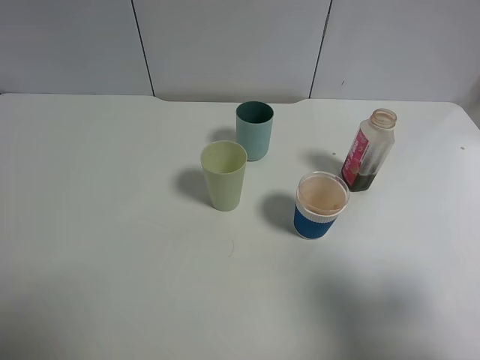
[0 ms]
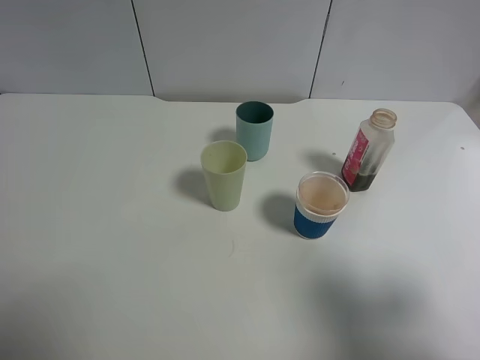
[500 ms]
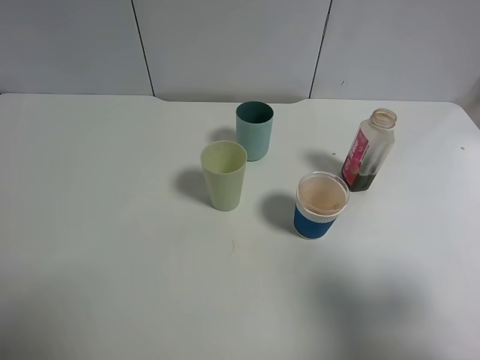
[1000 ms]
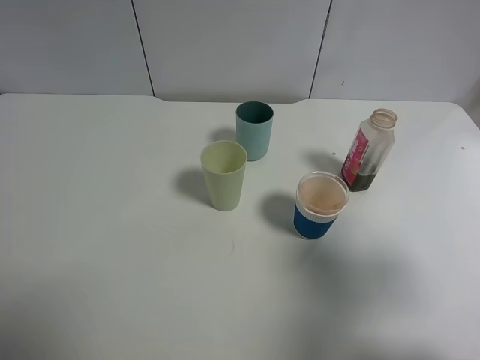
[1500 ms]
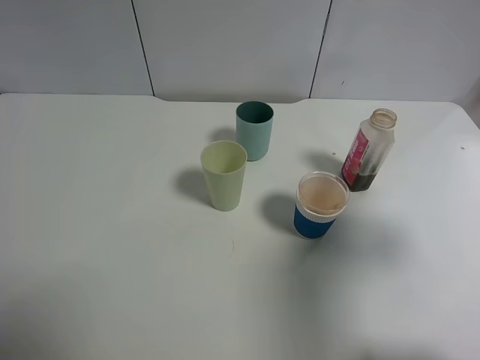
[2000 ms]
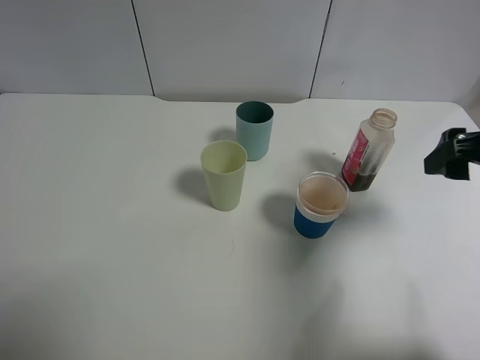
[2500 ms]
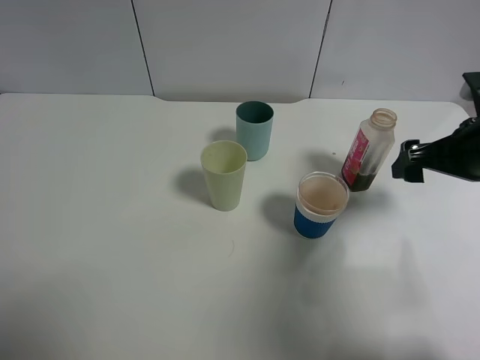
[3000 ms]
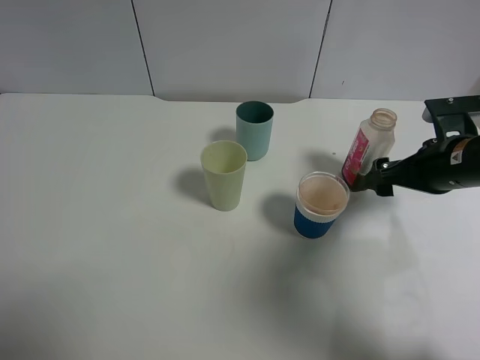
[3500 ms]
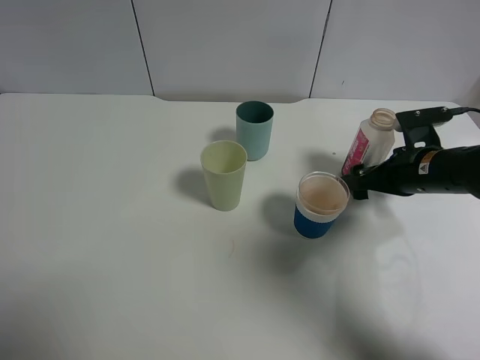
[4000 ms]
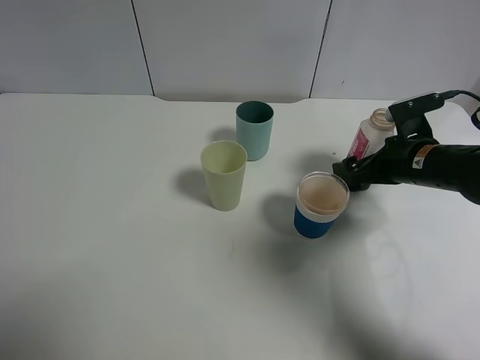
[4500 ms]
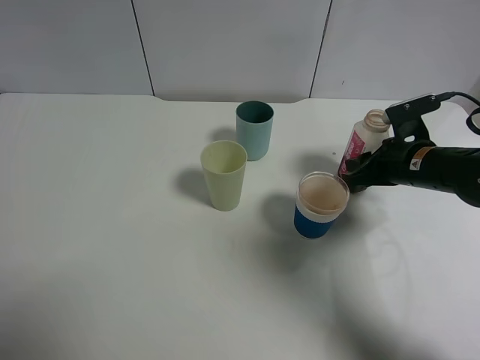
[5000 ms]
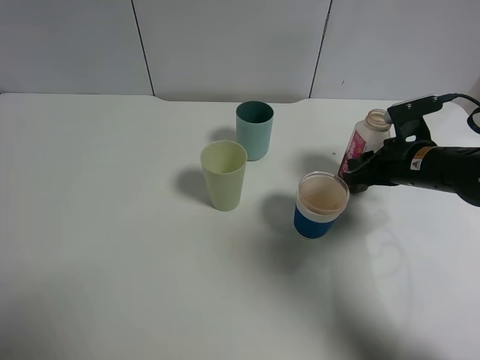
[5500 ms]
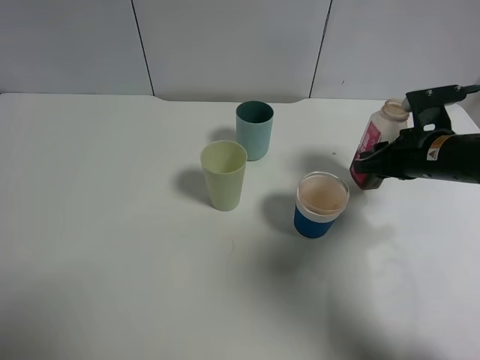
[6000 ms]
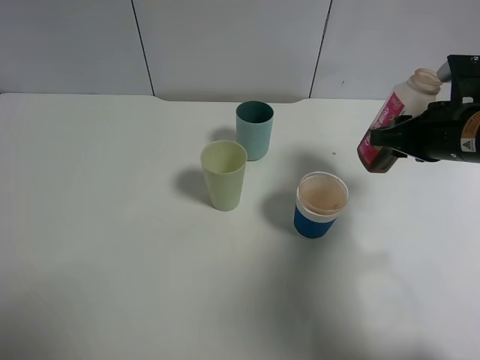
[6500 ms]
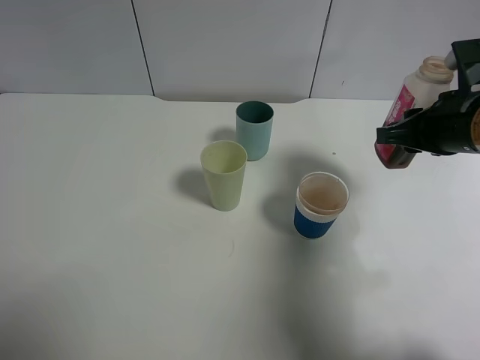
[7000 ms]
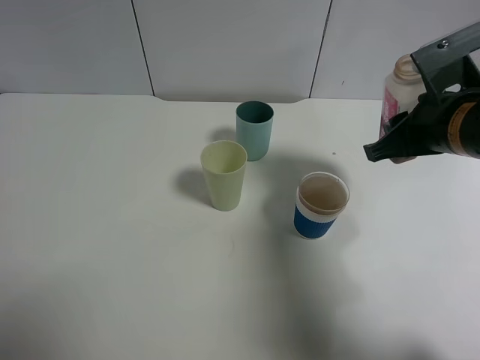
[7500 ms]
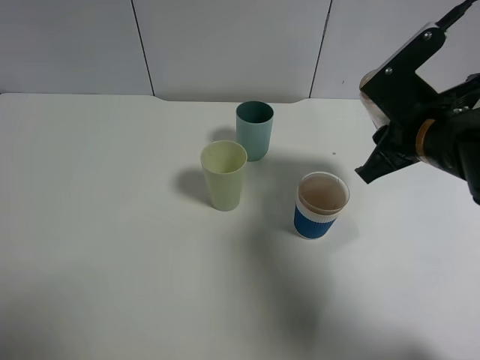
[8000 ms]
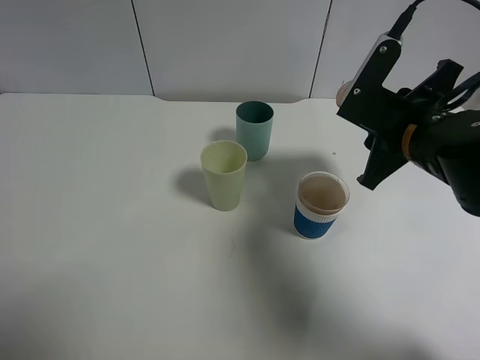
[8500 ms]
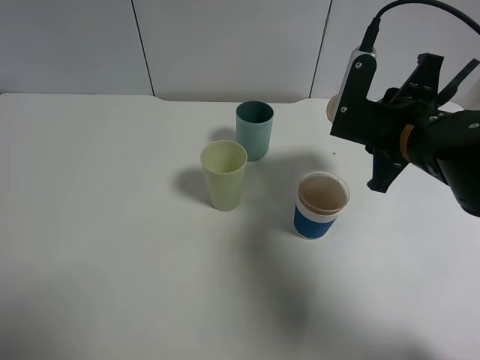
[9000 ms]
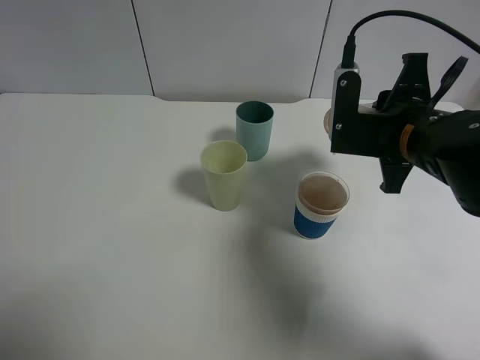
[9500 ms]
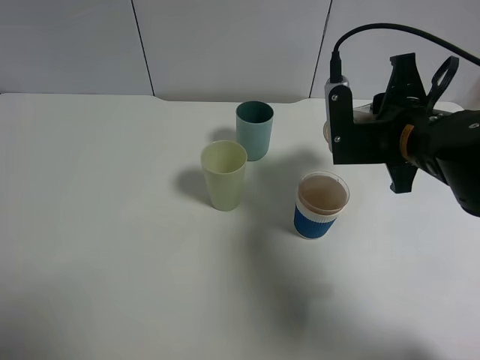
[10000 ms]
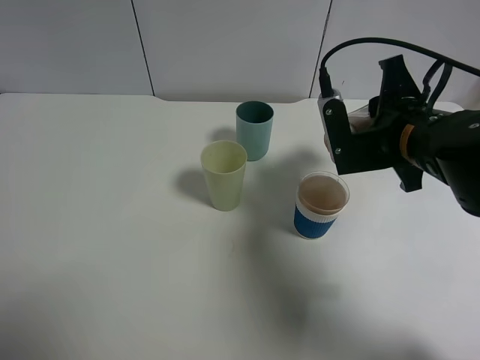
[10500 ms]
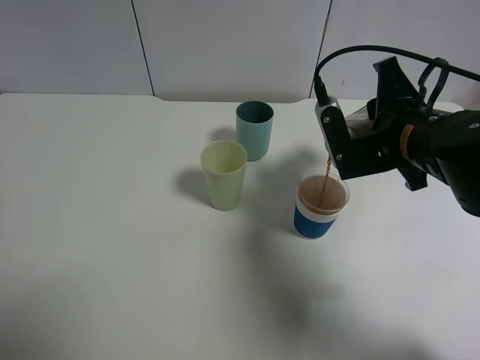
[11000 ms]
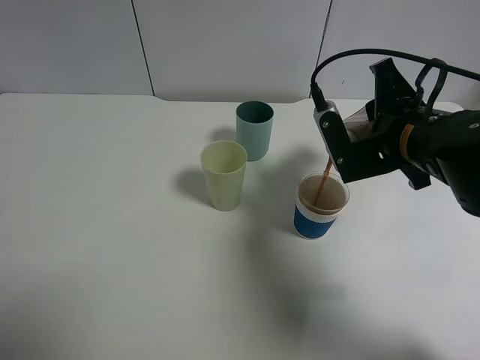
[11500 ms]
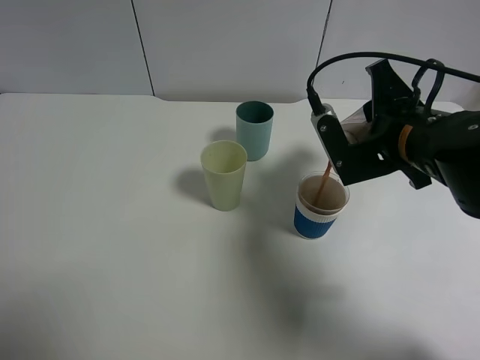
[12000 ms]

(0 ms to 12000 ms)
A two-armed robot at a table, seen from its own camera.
Task of the whole recording: use a gripper to hold the bottle of the drink and pour it into a random cup.
Step, 0 ms - 5500 ms: Grasp the cranberry juice bottle with the right gripper.
0 ms - 2000 ms: The right gripper is displaced forward by roughly 10 cm.
2000 ms - 4000 ms: The right gripper heads downward and forward, covering roughly 25 cm.
4000 ms - 6000 ms: The right gripper closes up.
6000 ms - 8000 ms: The right gripper moves to the left, upward and backward, roughly 10 cm.
10000 ms - 12000 ms: There are only small adjustments of the grippers.

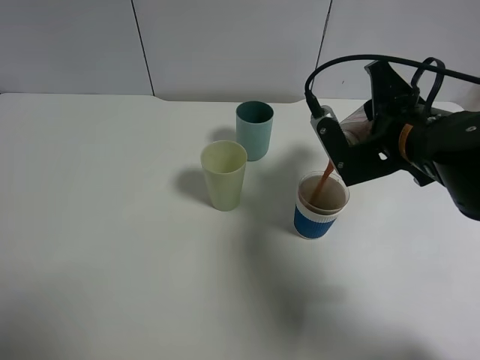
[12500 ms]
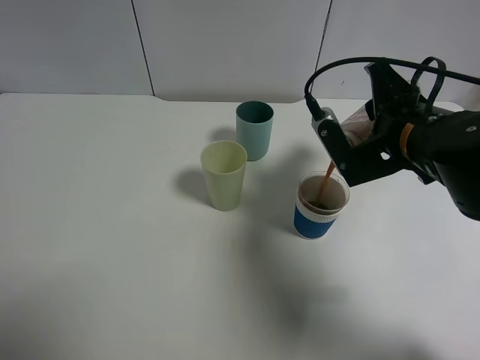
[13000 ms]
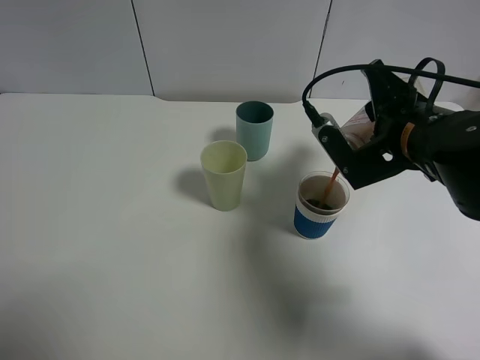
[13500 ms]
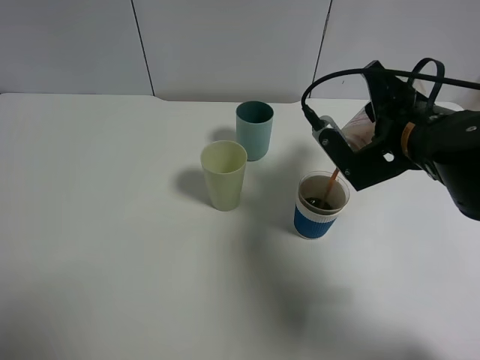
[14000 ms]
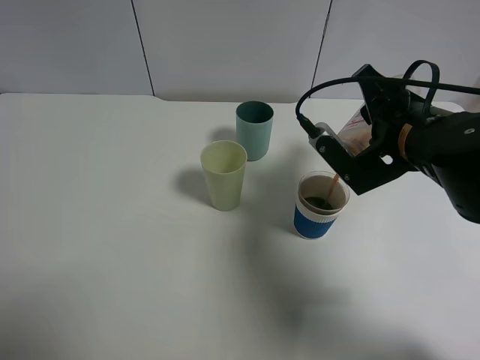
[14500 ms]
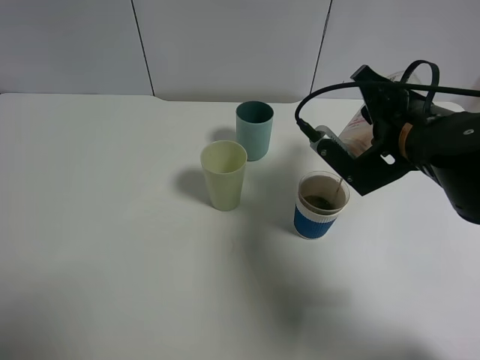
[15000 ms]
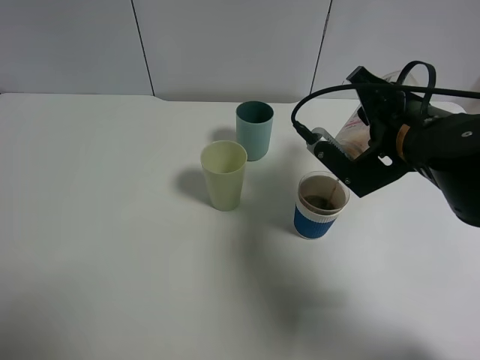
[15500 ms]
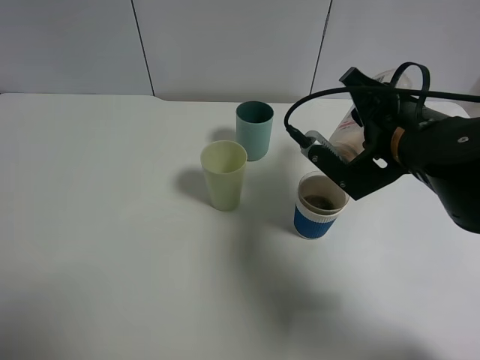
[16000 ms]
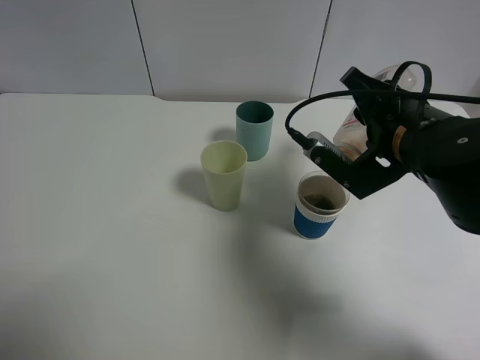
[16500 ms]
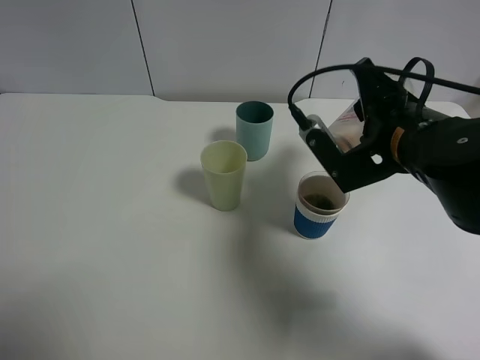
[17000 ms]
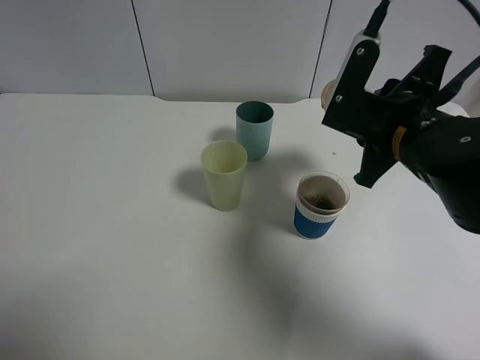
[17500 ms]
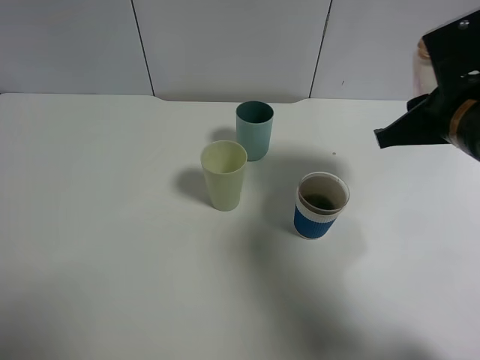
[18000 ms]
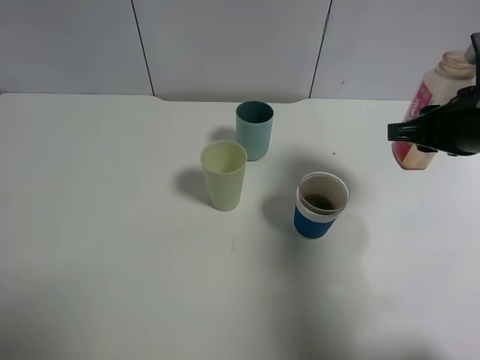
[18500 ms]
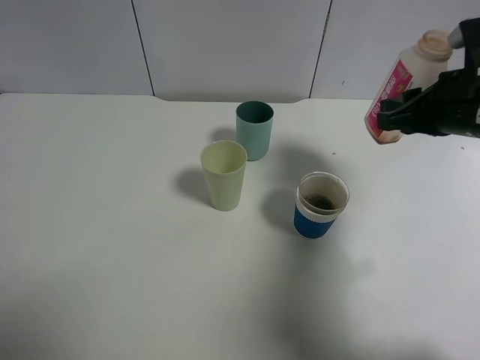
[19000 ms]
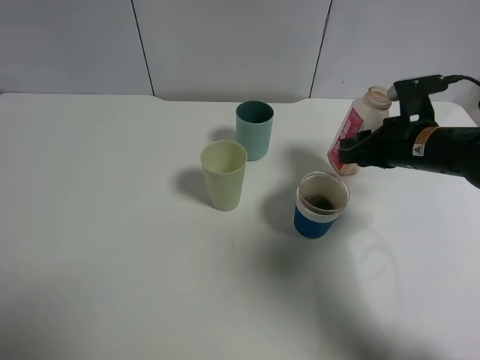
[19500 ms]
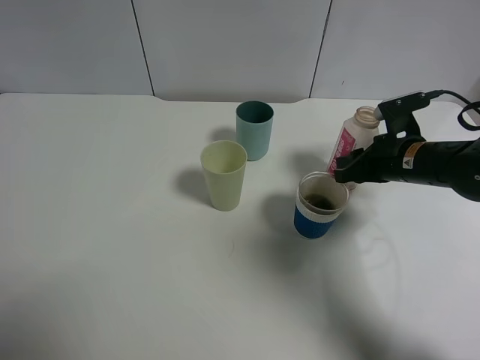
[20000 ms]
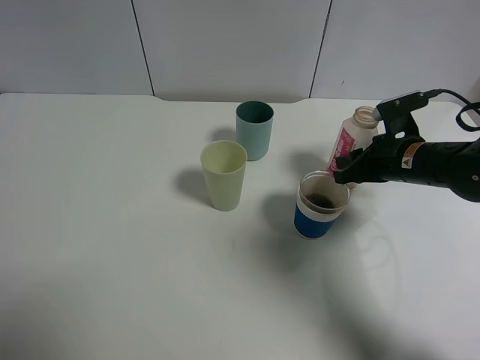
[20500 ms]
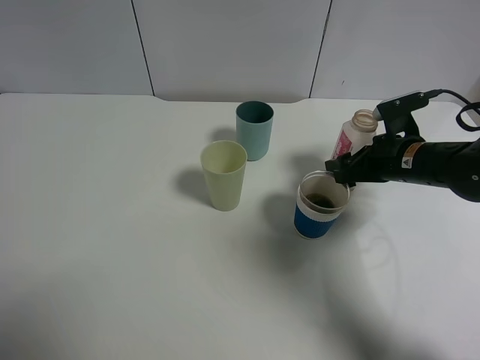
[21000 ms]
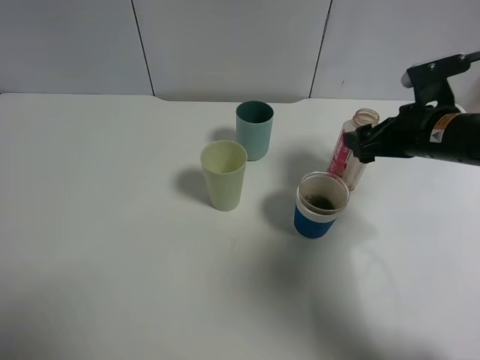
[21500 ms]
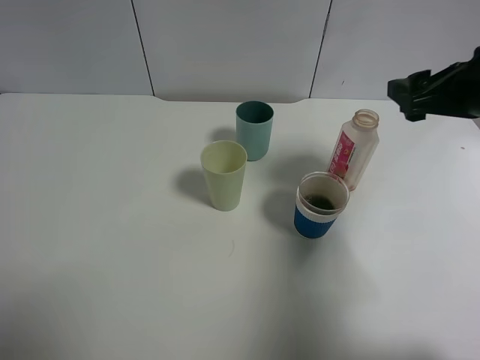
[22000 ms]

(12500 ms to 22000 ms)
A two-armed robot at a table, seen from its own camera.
Task of the whole recording: use a gripper to hold the bottle of the drink and pour it into a random cup.
Step, 12500 ms - 17500 ms: Pour the cranberry juice into the cyan cup with the right gripper.
Step, 18000 ms - 21500 ms: Place the cranberry juice bottle on the table with the right gripper.
12500 ms - 14500 ms: The grippers make only small movements.
14500 ms - 16500 ms: There are only small adjustments of the grippers.
16500 ms - 18000 ms: The right gripper ends up some 5 cm from where it was.
18000 ms - 20000 ms: The right gripper shifts approximately 15 cm downward and forward.
20000 ms - 22000 ms: The right gripper shifts about 15 cm upward and backward, and opens.

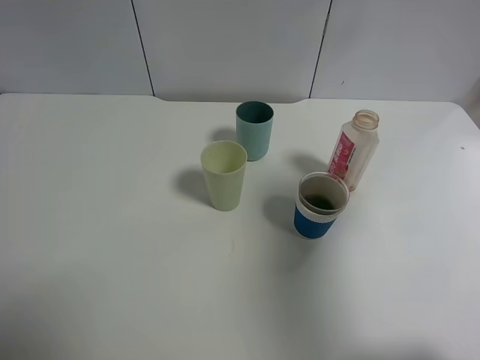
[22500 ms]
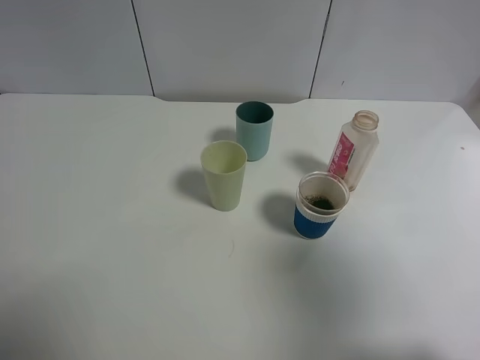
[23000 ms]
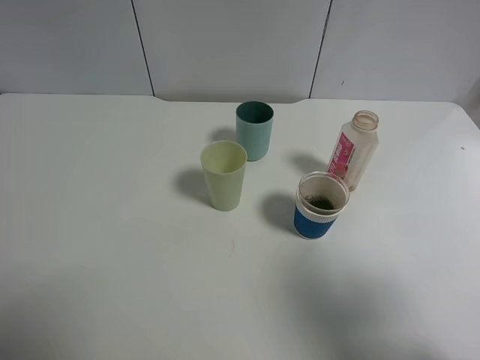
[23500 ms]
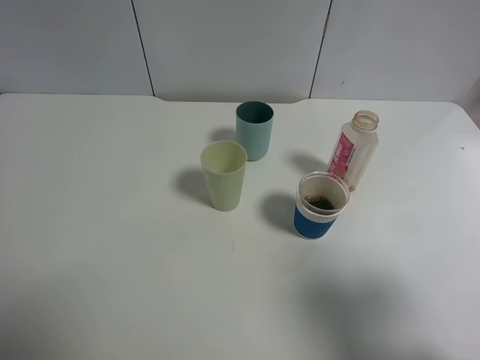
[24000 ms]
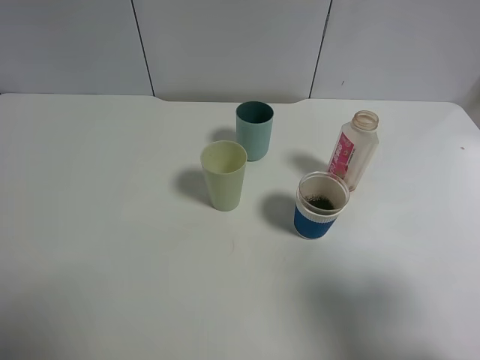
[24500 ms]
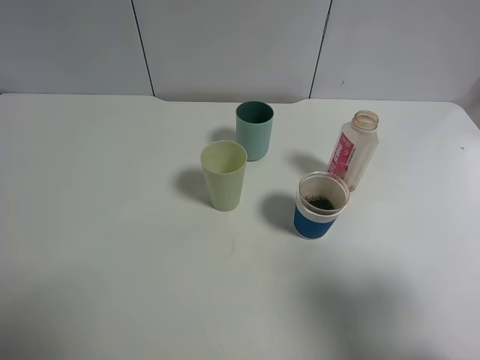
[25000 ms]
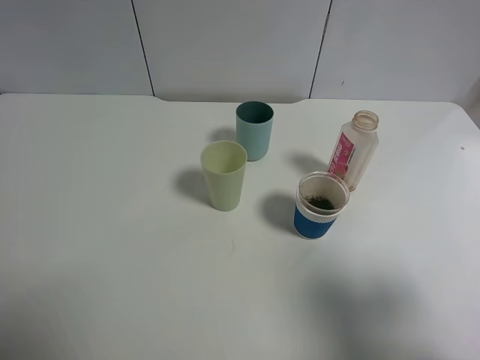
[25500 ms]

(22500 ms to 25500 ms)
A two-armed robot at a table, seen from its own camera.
Task of the whole recording: use a gripper to hold the bottle of the drink and pour it into a random cup.
22500 ms - 24000 ms: The right gripper heads backward and downward, covering roughly 15 cm.
